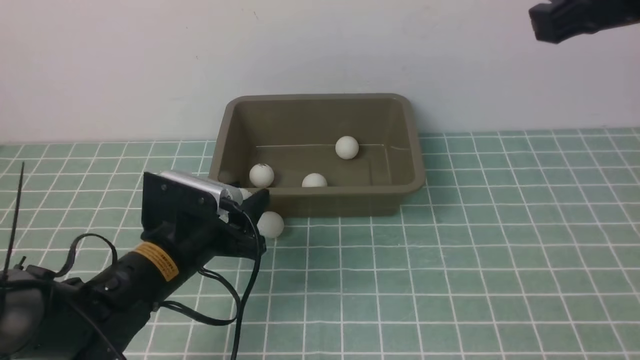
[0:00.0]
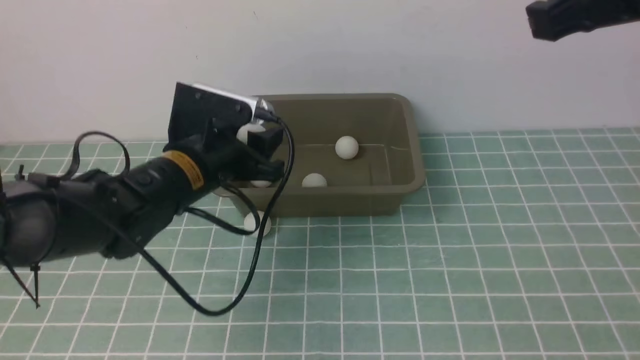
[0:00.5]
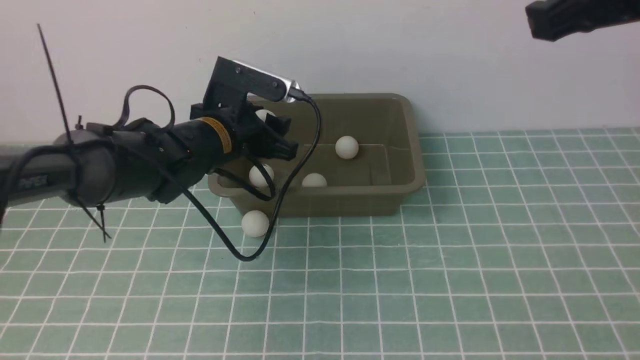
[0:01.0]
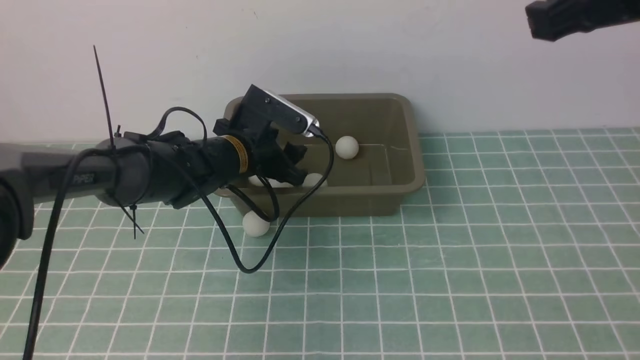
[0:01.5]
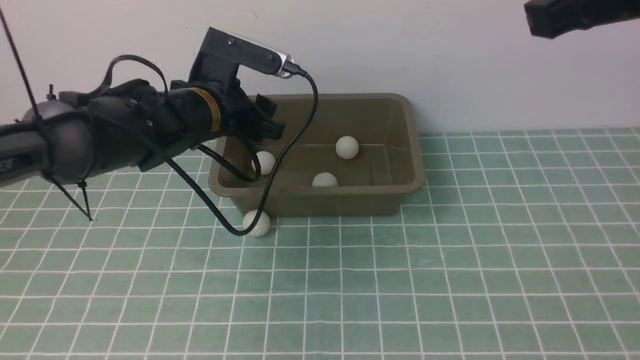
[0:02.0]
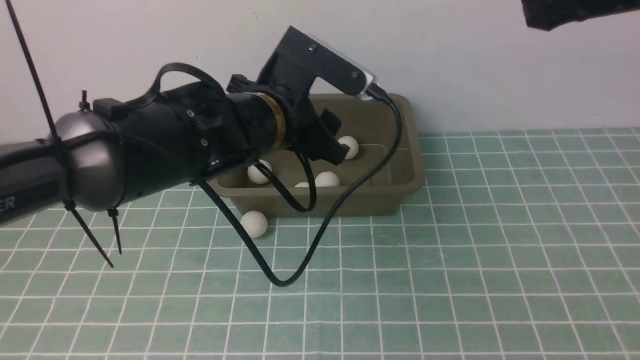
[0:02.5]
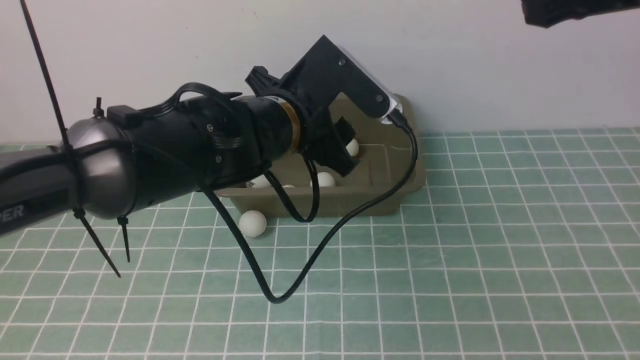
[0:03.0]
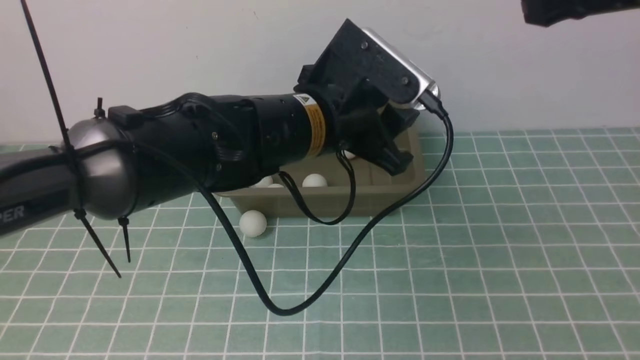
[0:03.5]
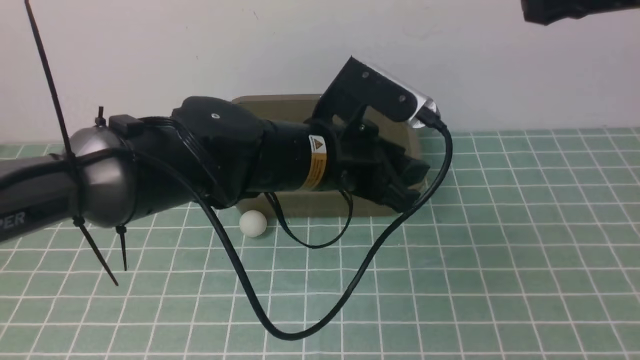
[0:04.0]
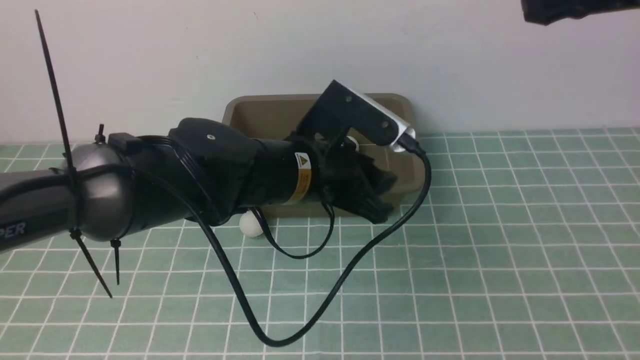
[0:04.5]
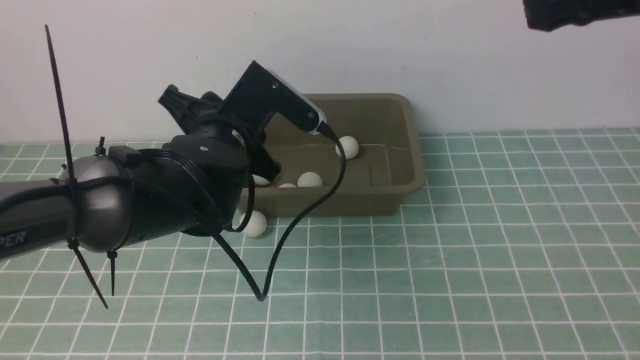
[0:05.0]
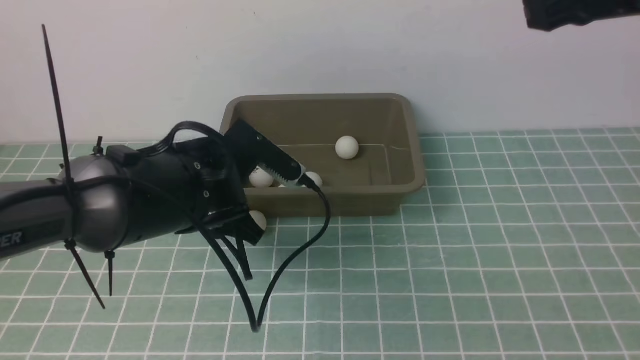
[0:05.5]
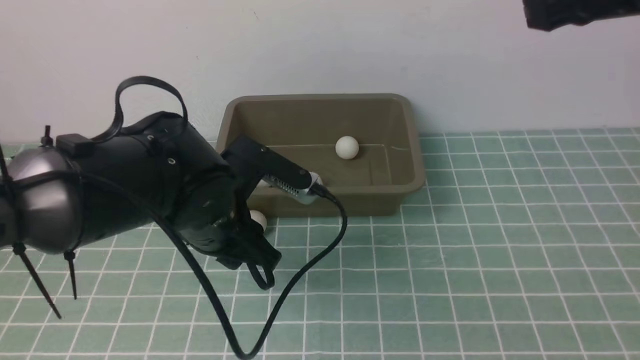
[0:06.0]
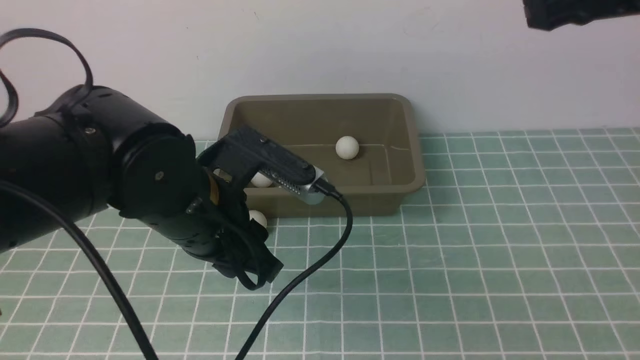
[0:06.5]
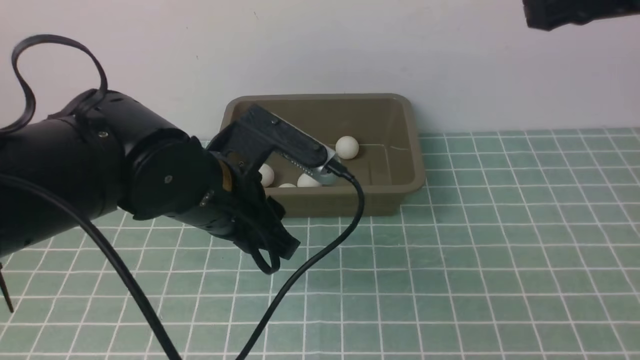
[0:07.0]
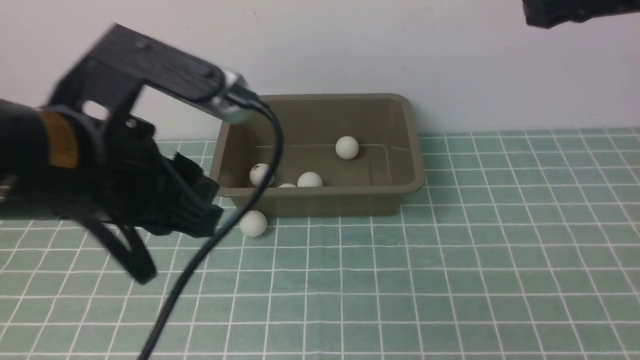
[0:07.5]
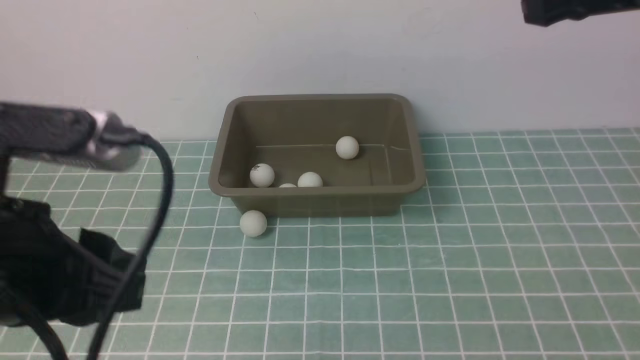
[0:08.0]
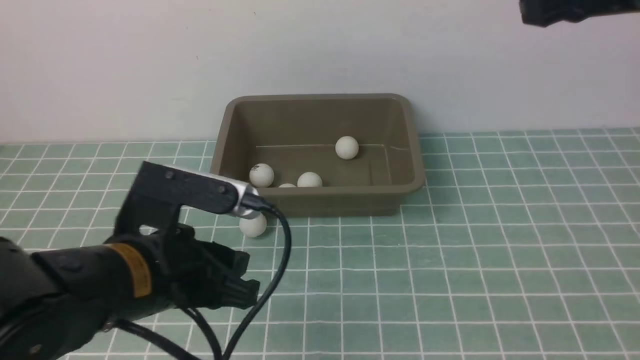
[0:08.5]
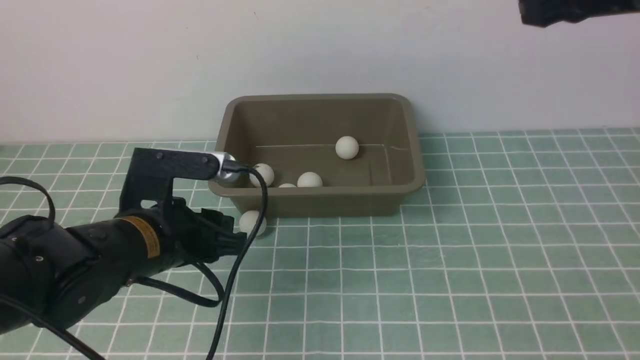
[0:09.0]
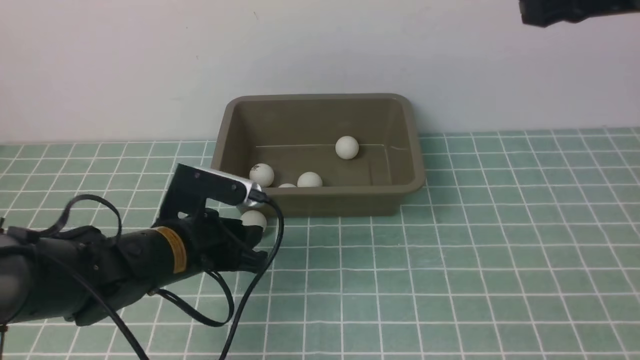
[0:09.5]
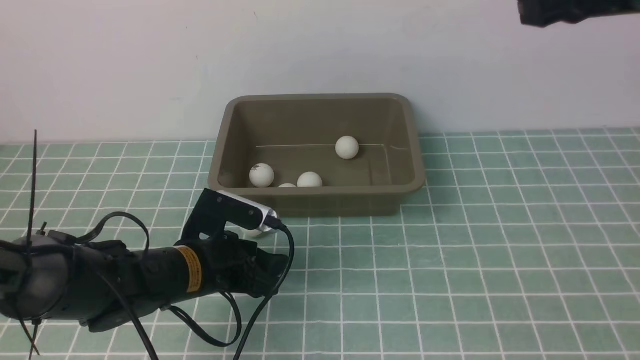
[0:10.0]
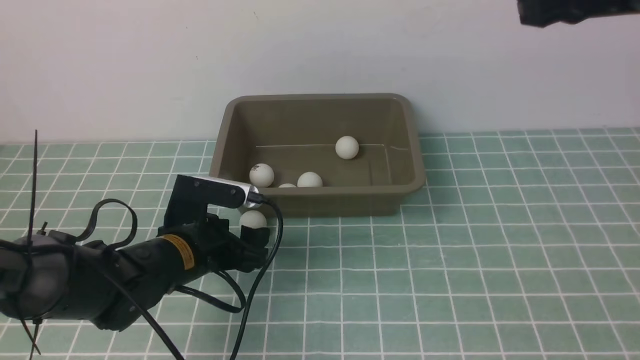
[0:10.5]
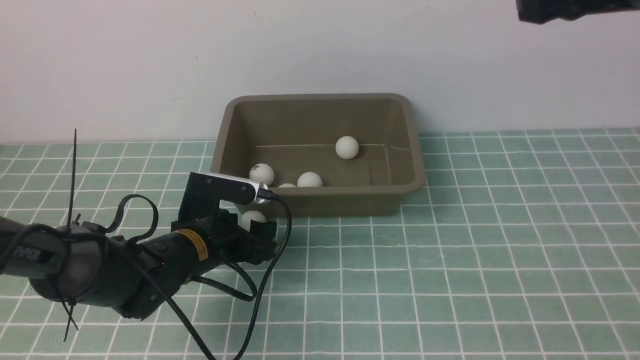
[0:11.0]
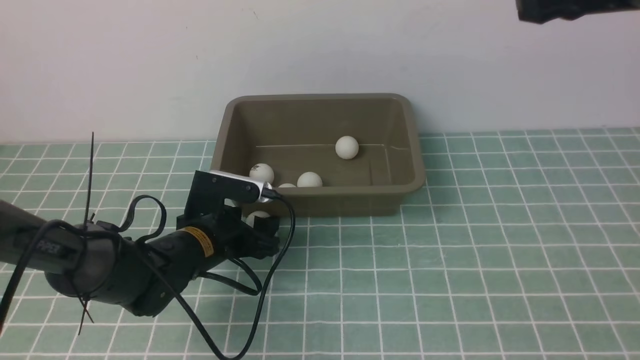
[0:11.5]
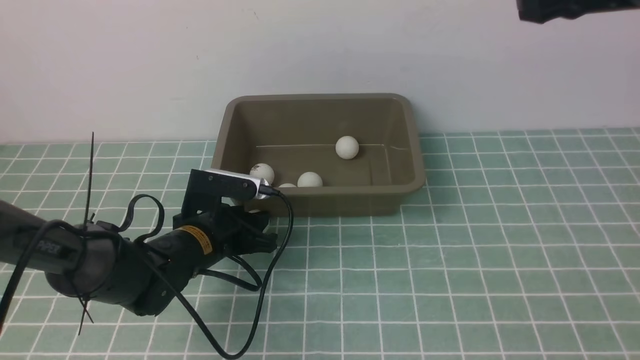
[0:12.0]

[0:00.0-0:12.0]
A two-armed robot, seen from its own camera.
Step, 0:00.0 to 0:01.5: use the left arm to put the table tennis ball into the box.
0:00.0 to 0:02.0: The left gripper travels forward and upward by about 10 cm.
0:02.0 to 0:04.0: The left gripper is displaced to the right and backward by about 15 cm.
0:04.0 to 0:06.0: The left gripper is displaced to the left by some 10 cm.
0:06.0 to 0:08.0: The left gripper goes approximately 20 cm backward, upward and to the left.
0:08.0 to 0:10.0: The left gripper travels downward and forward by about 25 cm.
0:10.0 to 0:12.0: The left gripper ends up about 5 cm from where it was, and closes its fingers.

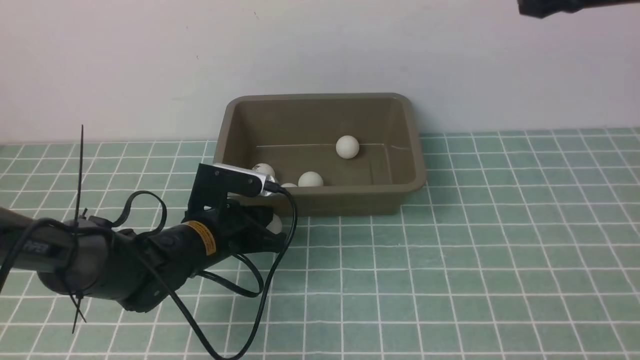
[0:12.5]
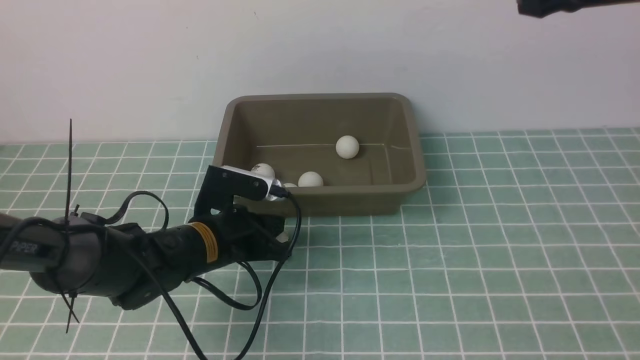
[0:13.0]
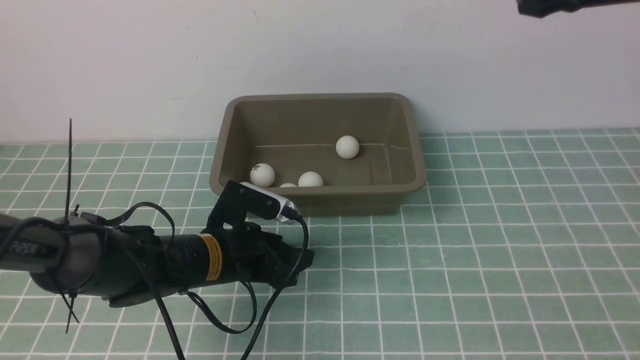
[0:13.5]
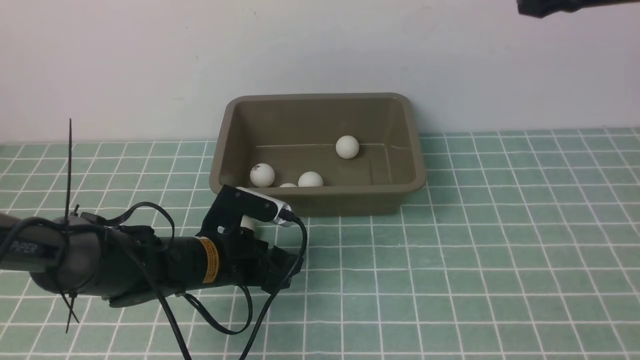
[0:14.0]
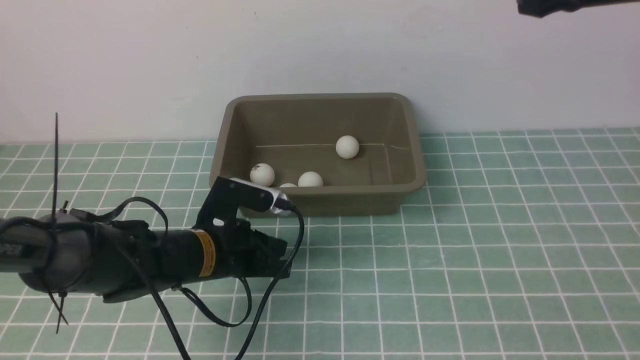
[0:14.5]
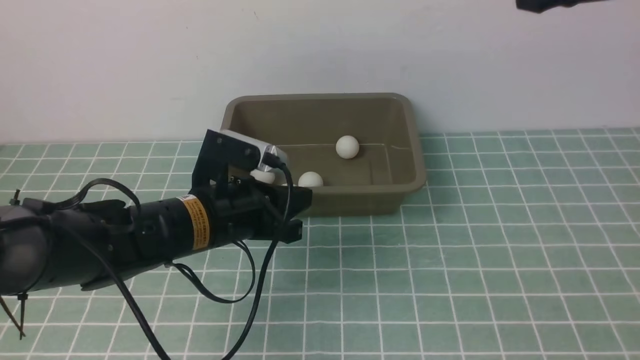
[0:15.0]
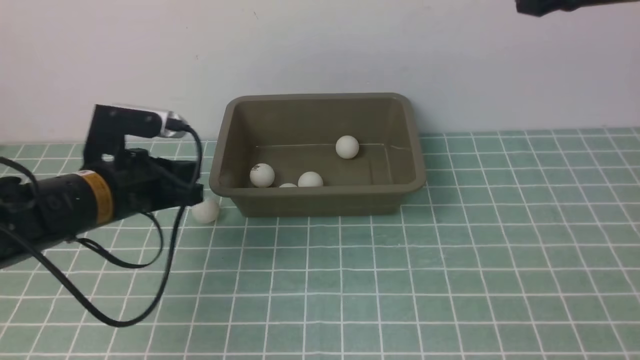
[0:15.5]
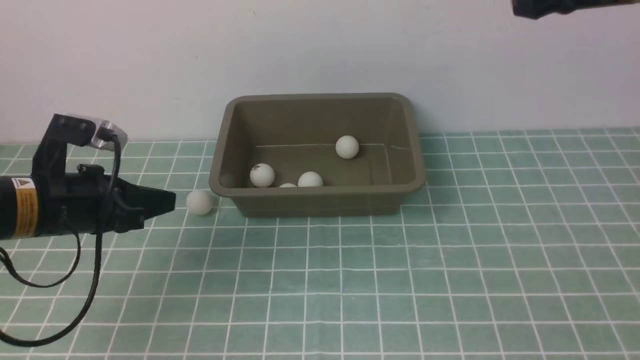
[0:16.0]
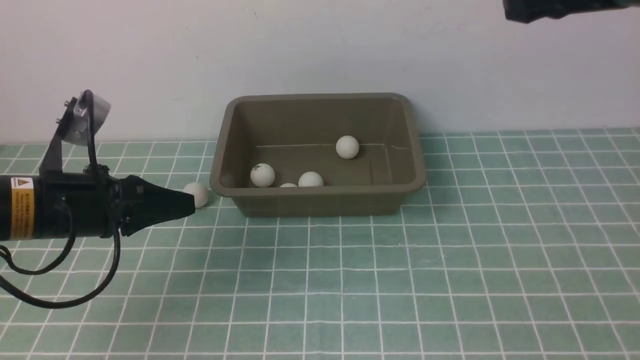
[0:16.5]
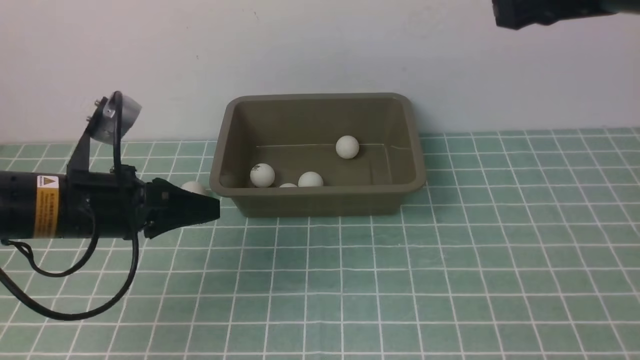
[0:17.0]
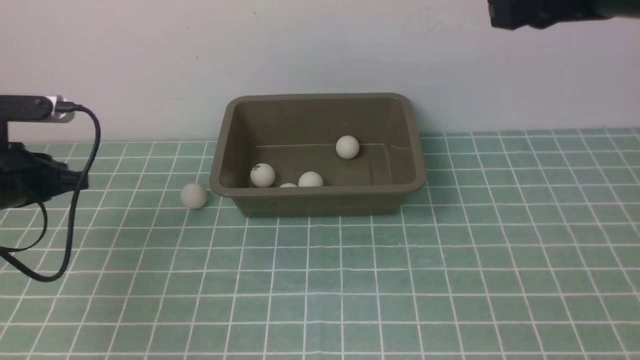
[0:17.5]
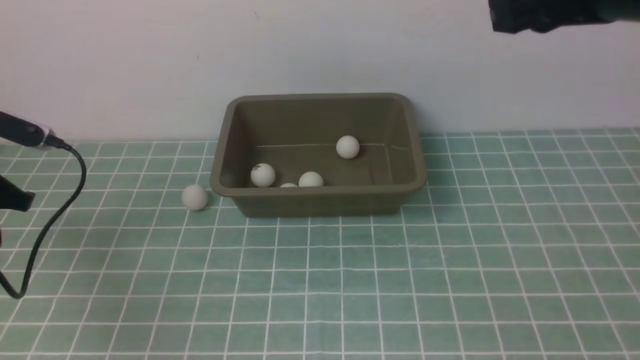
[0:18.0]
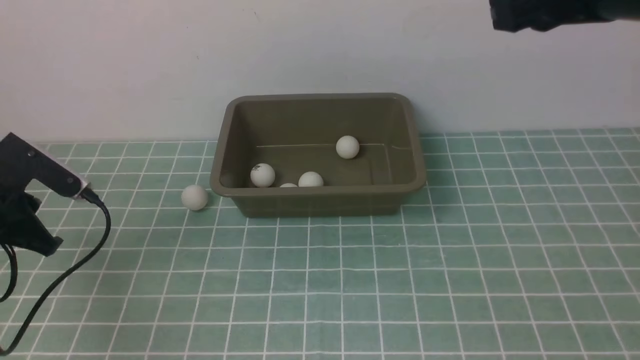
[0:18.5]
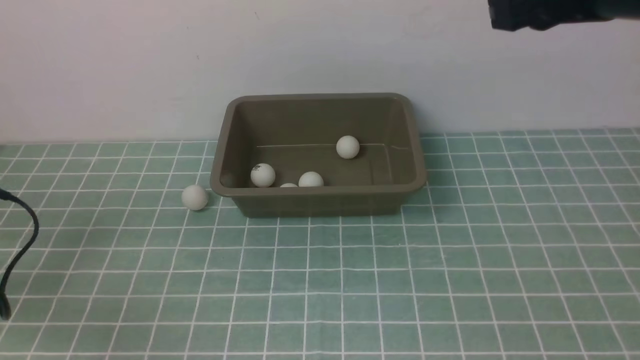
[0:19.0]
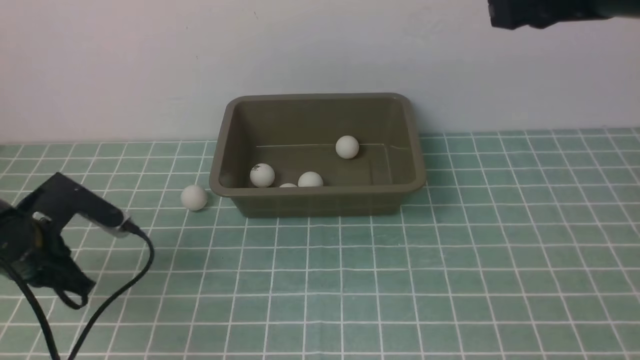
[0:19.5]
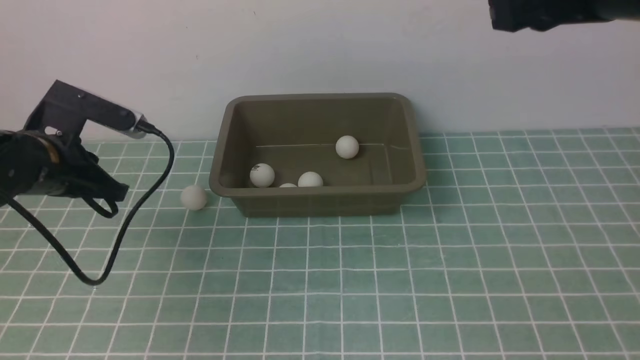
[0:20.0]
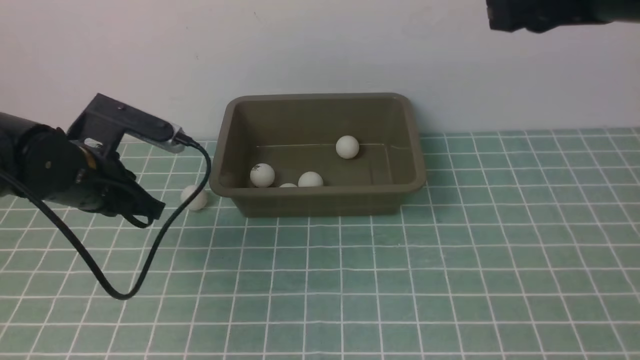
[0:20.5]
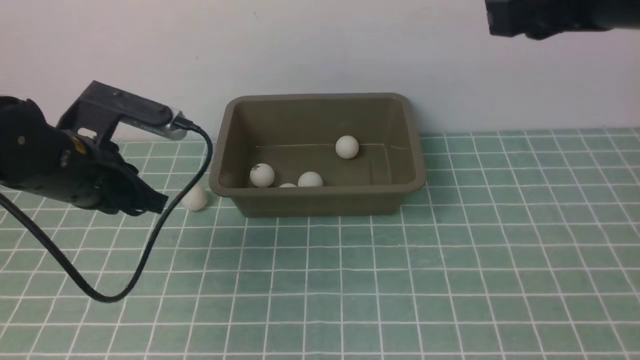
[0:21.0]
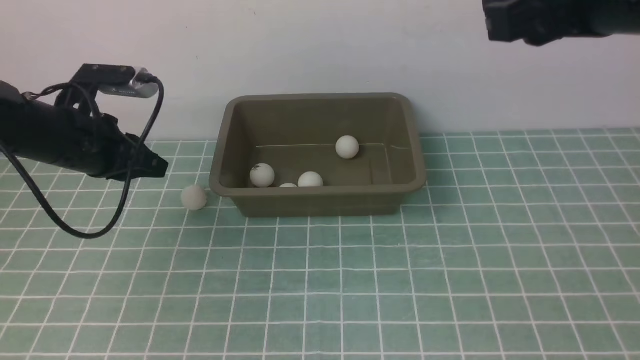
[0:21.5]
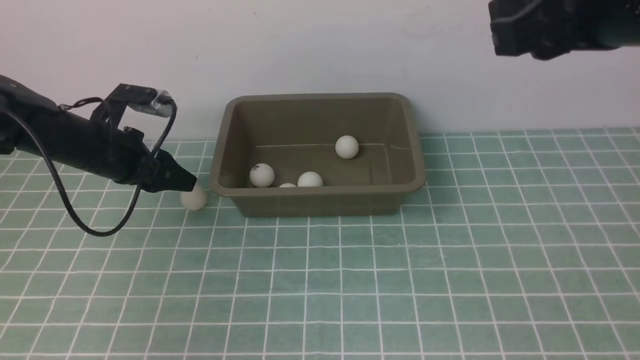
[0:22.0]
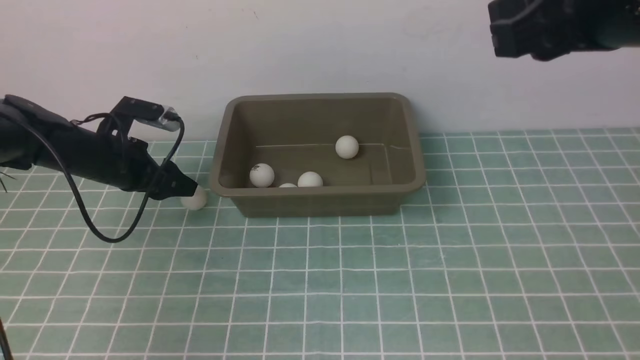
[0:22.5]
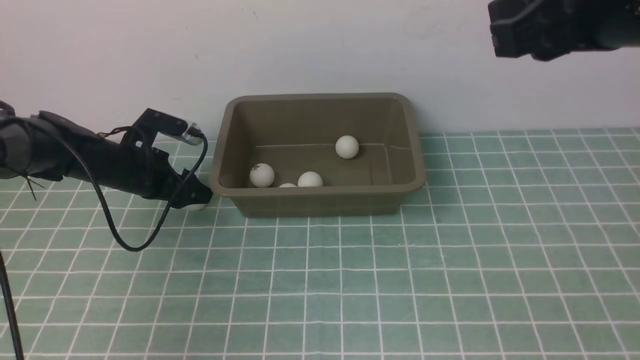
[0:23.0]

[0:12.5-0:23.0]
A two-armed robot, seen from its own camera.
0:12.5 to 0:14.5: The left gripper opens, then closes once more.
0:14.5 to 0:16.5: The left gripper is displaced to the left and upward by about 15 cm.
0:16.5 to 0:19.0: The left gripper is displaced to the left by about 15 cm.
0:19.0 to 0:21.0: The left gripper heads to the right and upward, covering roughly 15 cm.
0:21.0 to 0:23.0: The left gripper moves forward and downward, some 20 cm, and opens.
